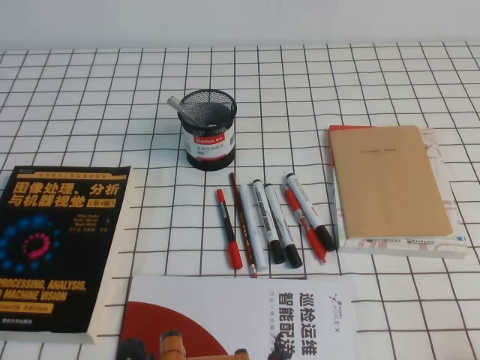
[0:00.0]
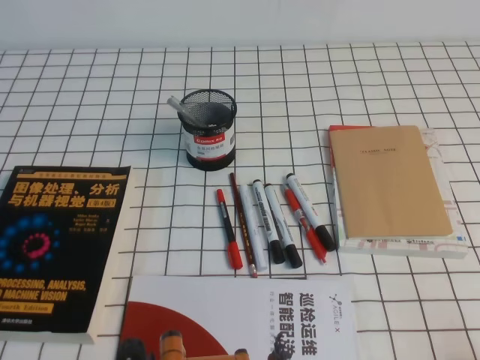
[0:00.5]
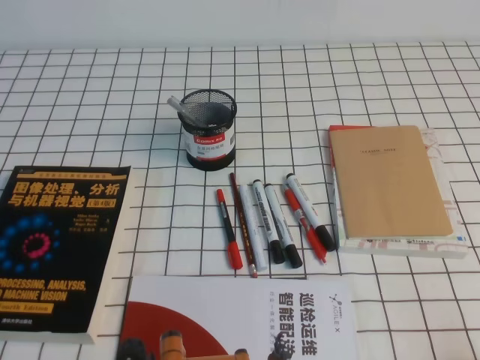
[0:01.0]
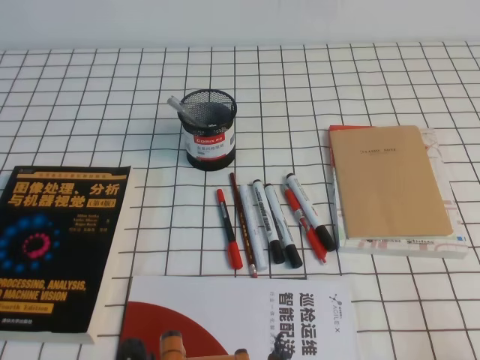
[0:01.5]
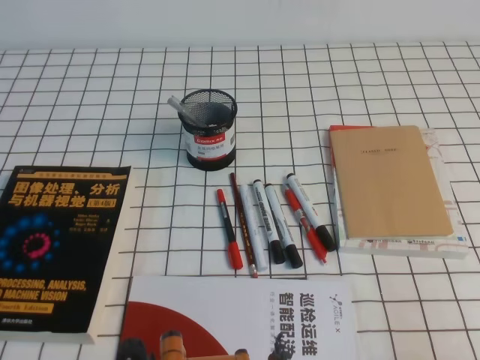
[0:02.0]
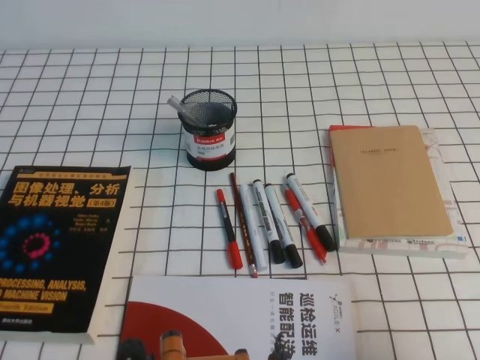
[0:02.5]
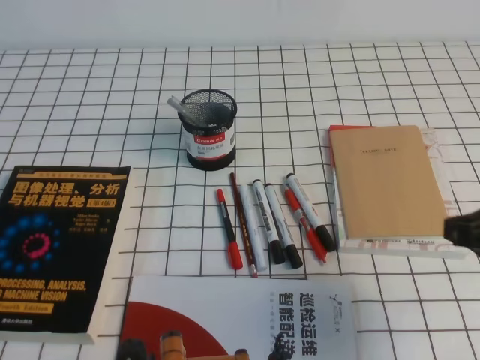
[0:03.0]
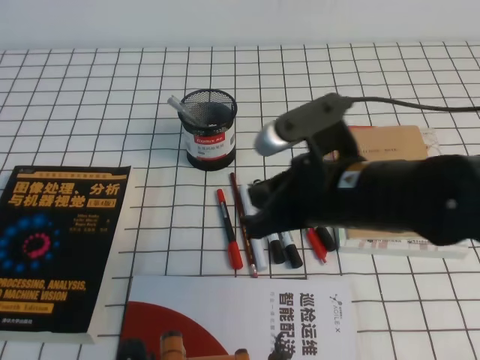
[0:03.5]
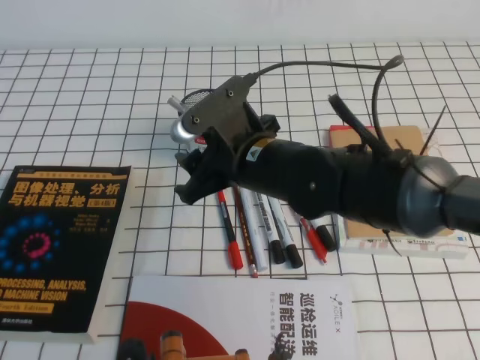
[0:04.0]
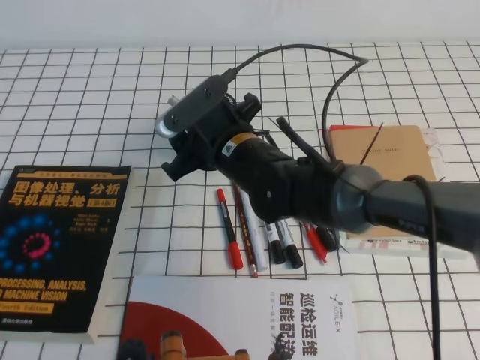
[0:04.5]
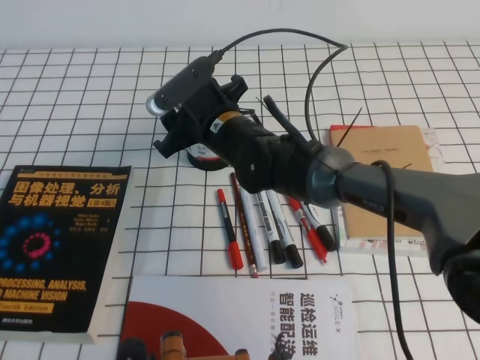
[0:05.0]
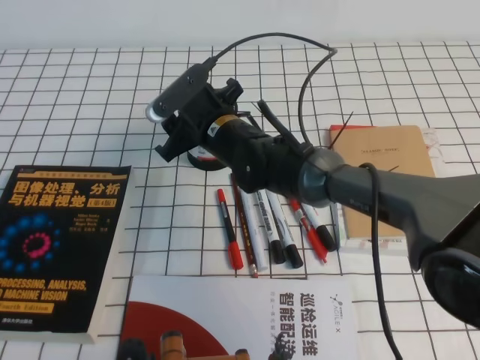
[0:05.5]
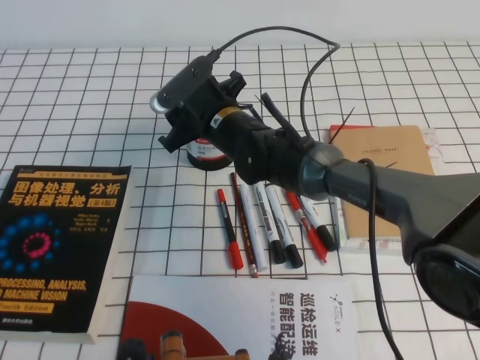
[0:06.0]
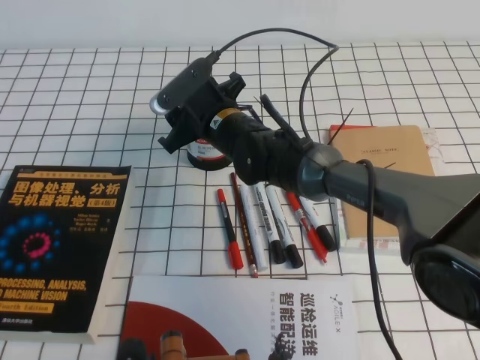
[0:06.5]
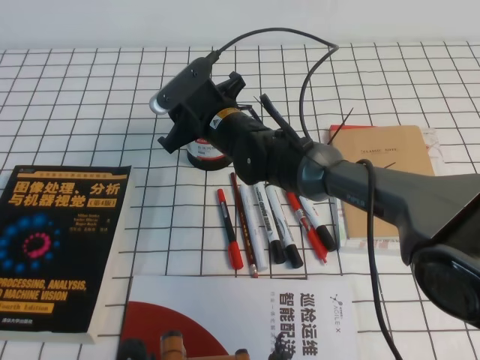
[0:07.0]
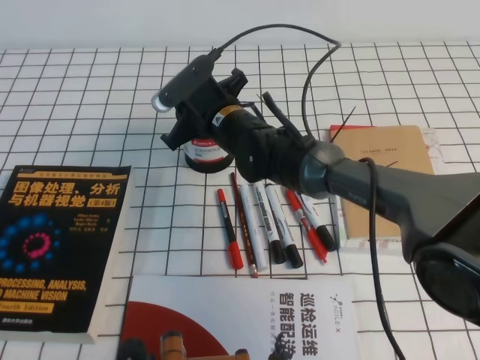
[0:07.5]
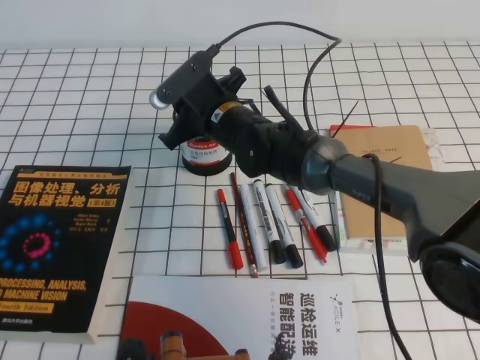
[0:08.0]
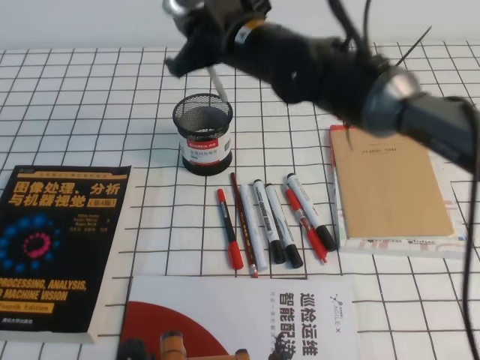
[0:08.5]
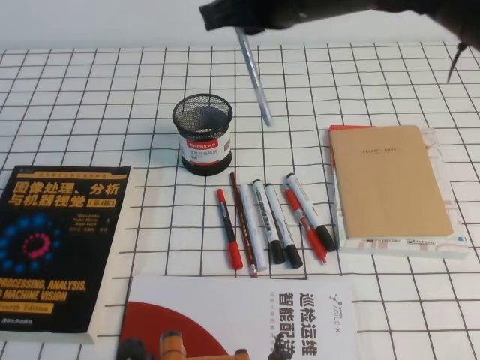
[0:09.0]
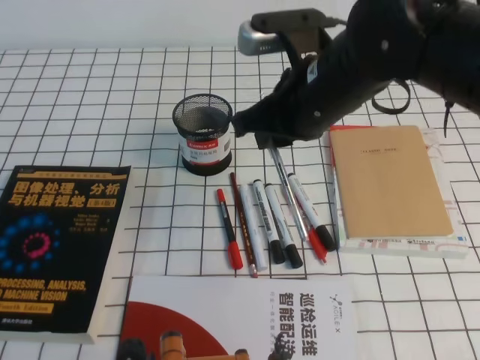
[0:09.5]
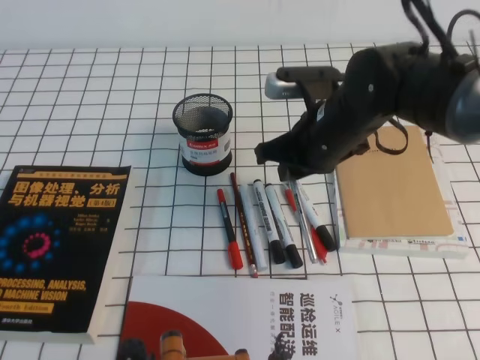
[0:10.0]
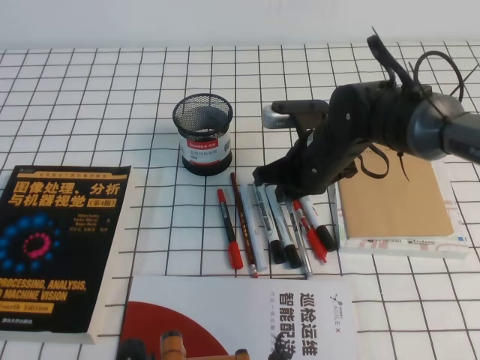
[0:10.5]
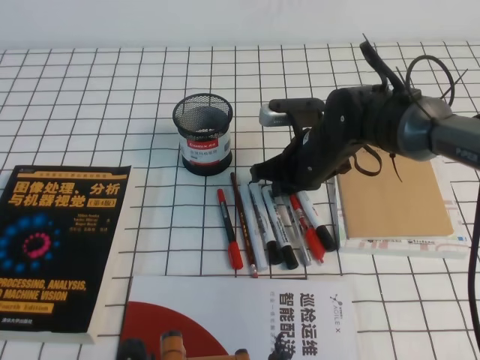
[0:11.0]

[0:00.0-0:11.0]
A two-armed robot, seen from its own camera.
0:02.0 to 0:03.5: The right gripper goes some 25 cm to the left and forward.
0:03.5 to 0:05.5: The right gripper travels forward, to the left and downward by some 25 cm, and opens up.
0:05.5 to 0:07.5: The right gripper closes its fingers.
0:07.5 to 0:09.0: The right gripper goes about 20 cm upward and to the right.
0:09.0 to 0:11.0: The right gripper travels downward by roughly 20 cm.

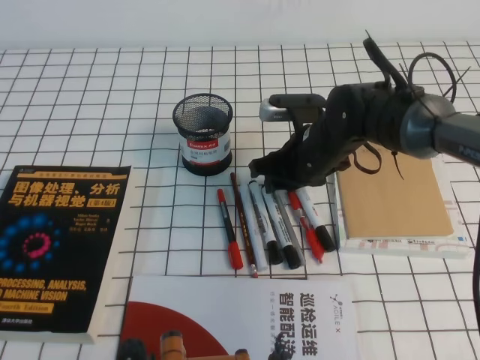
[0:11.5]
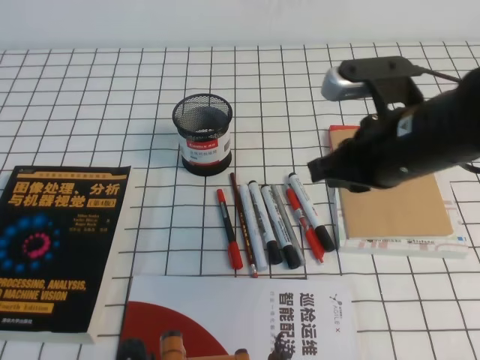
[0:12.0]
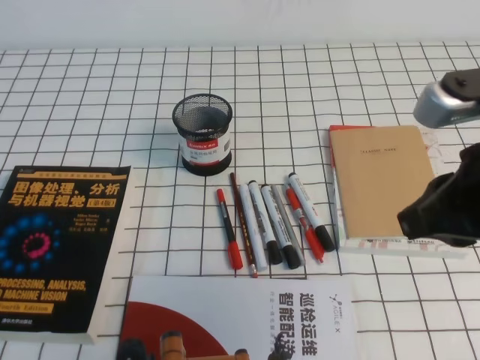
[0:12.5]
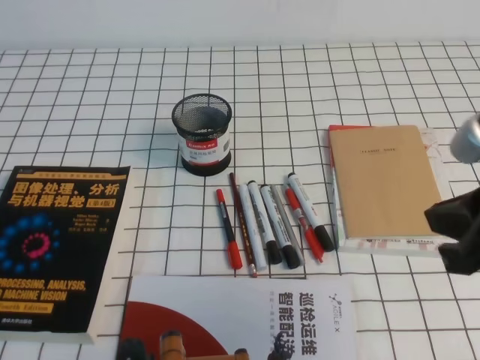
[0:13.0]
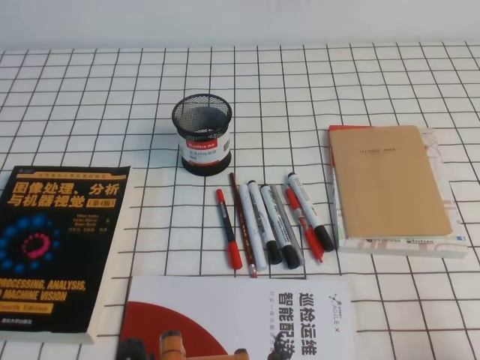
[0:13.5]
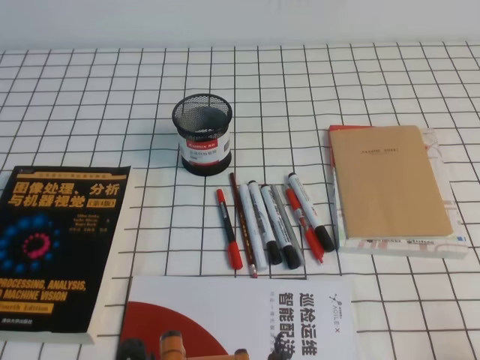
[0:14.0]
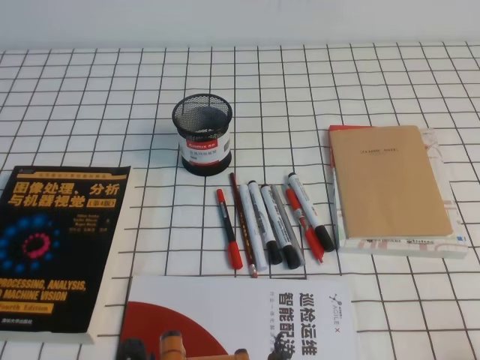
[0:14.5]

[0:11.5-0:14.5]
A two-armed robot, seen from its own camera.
Step, 0:11.5 to 0:14.5: Pick up the pen from the pen holder.
0:11.5 to 0:13.0: The right gripper is displaced backward, upward and to the right by some 30 cm, and closes up.
0:13.0 to 0:14.5: The right gripper travels downward, backward and to the right by about 20 cm.

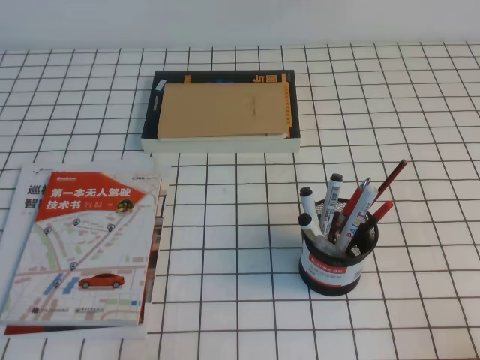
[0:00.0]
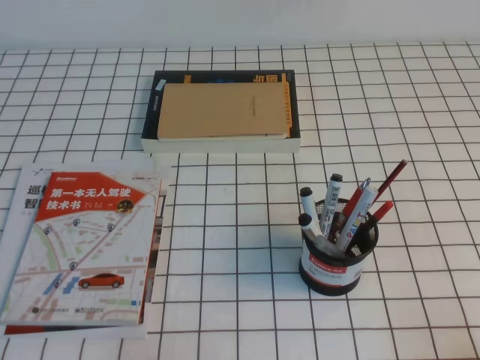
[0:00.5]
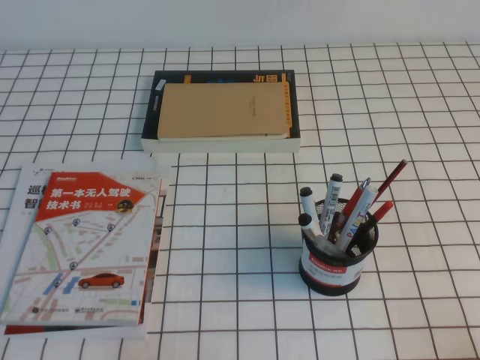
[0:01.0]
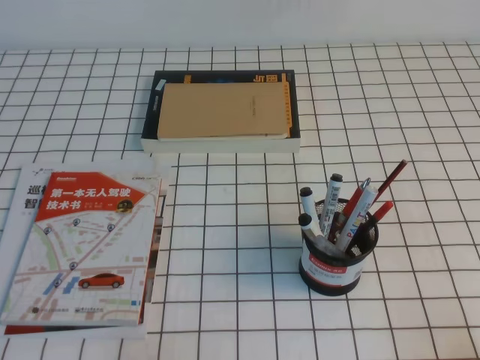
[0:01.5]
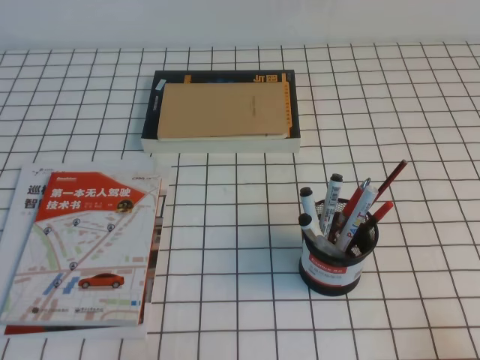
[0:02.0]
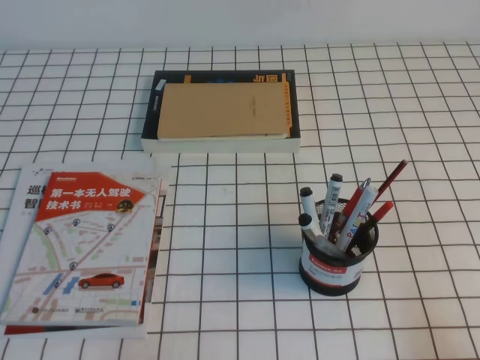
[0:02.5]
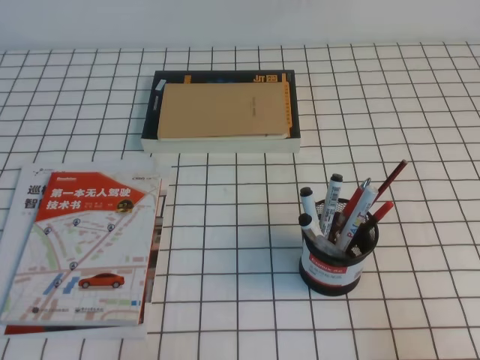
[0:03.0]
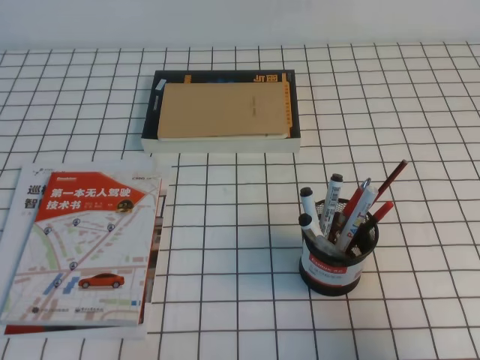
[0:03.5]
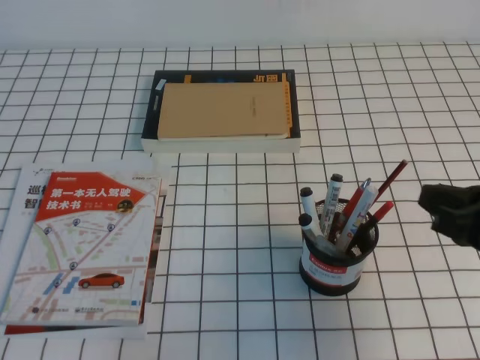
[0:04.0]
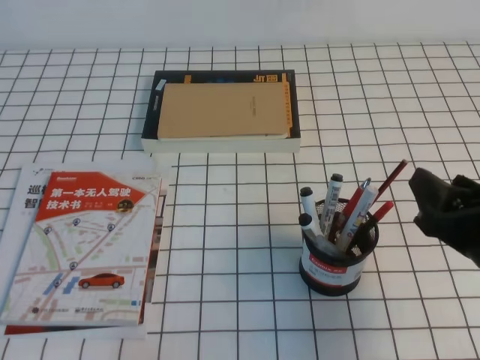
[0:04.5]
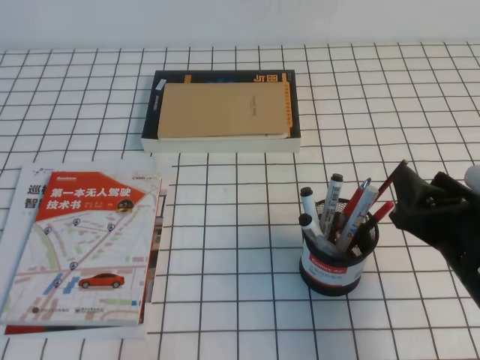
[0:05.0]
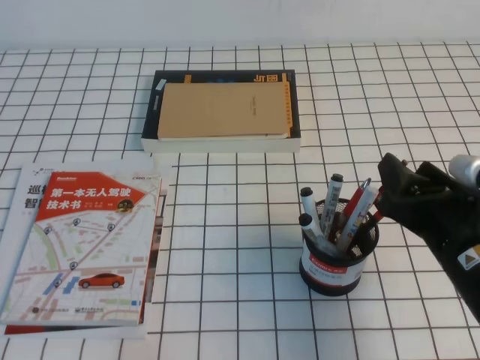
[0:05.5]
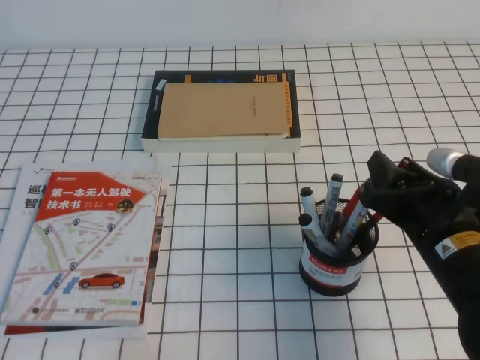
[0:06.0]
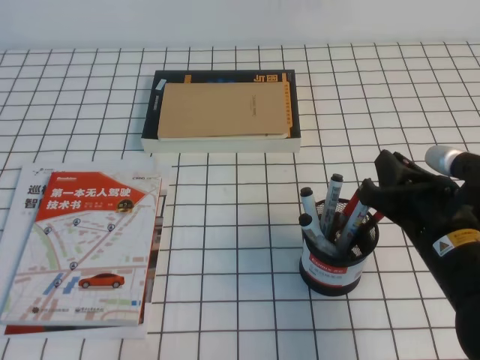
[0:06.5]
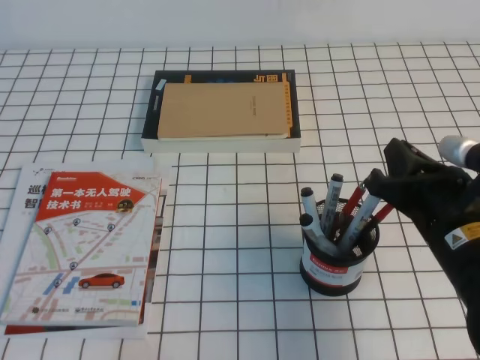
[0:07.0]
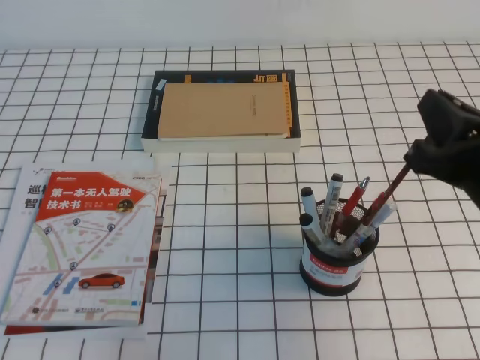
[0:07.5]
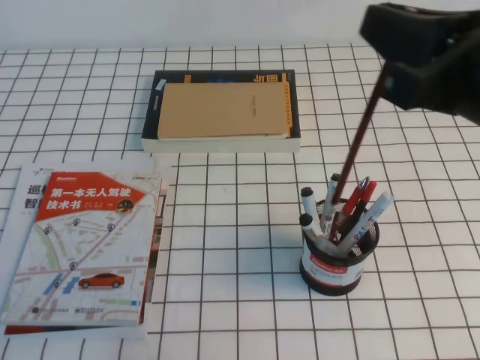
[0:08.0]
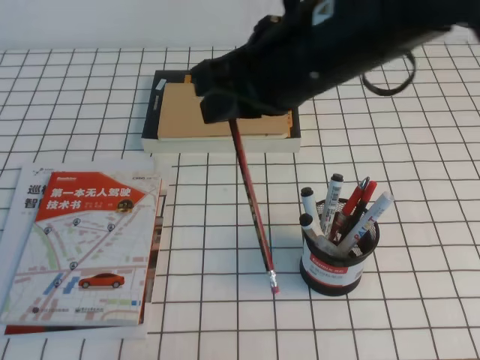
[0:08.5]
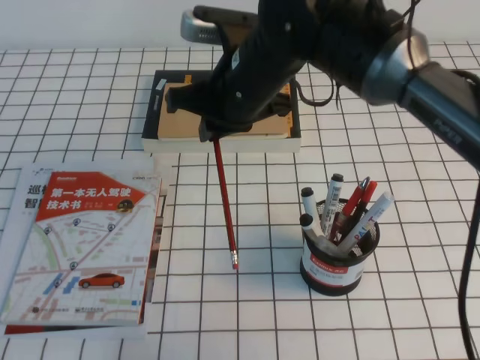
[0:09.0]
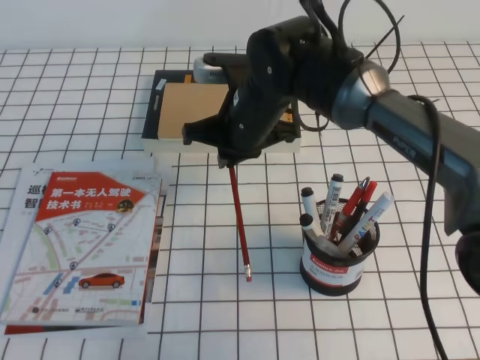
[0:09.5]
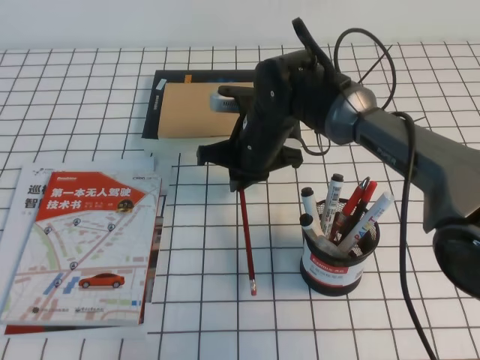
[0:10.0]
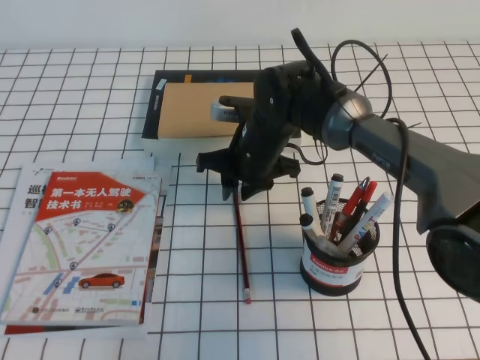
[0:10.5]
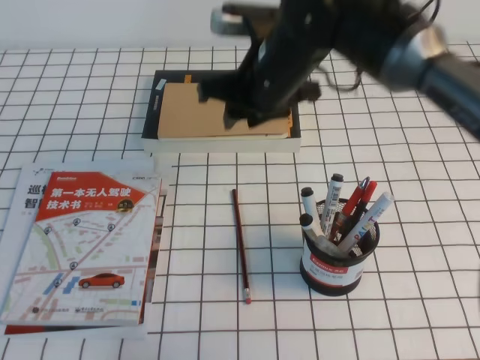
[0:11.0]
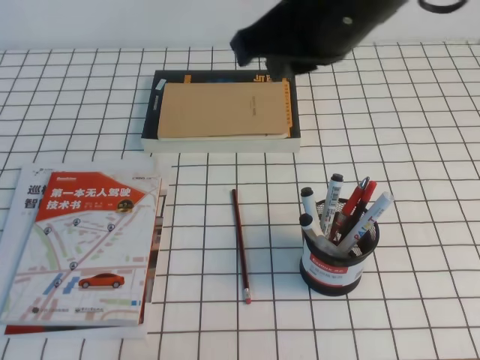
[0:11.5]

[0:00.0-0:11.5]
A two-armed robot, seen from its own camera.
0:02.0 to 0:04.0: The right gripper goes some 15 cm forward, upward and to the left.
0:04.0 to 0:06.0: The right gripper moves downward, to the left and forward, approximately 10 cm, and opens up.
0:06.0 to 0:07.5: The right gripper shifts some 10 cm upward, and closes up.
0:07.5 to 0:09.5: The right gripper is displaced to the left and forward by roughly 25 cm.
0:09.5 to 0:11.5: The right gripper is displaced upward, backward and to the right by approximately 20 cm, and opens, then closes once more.
